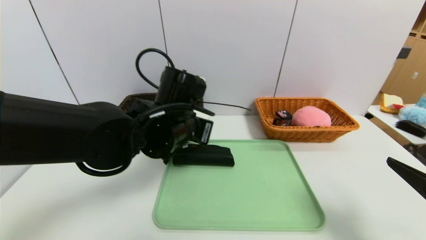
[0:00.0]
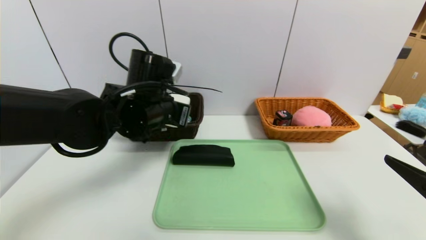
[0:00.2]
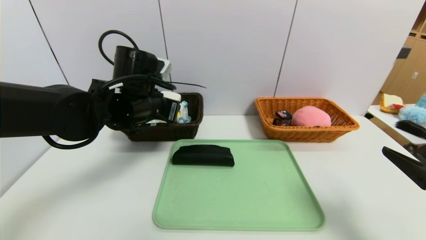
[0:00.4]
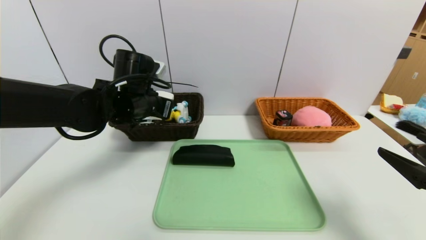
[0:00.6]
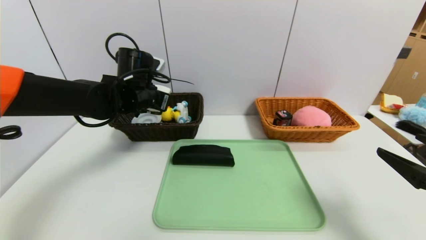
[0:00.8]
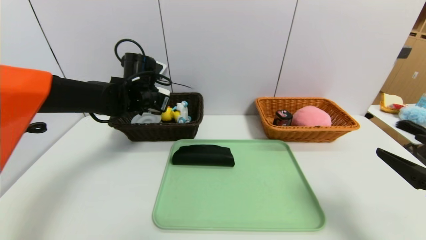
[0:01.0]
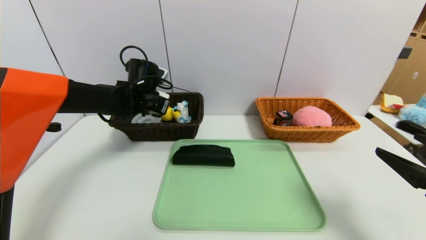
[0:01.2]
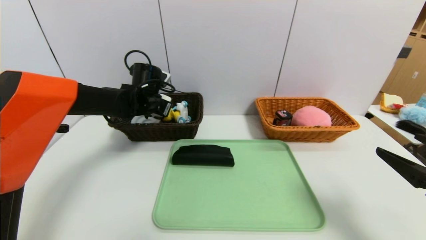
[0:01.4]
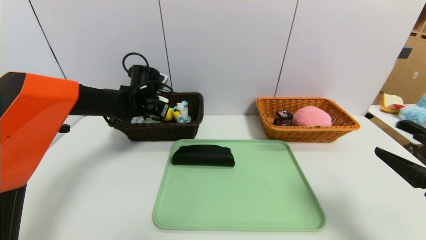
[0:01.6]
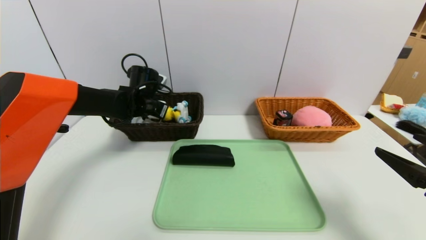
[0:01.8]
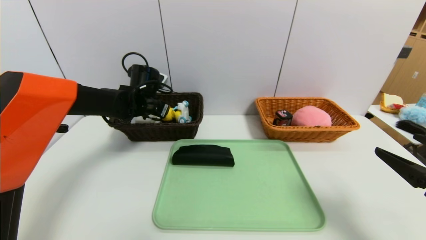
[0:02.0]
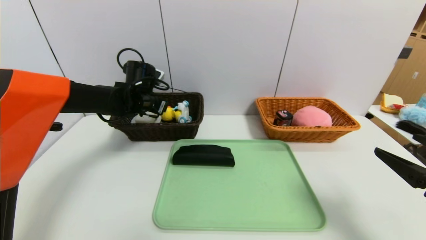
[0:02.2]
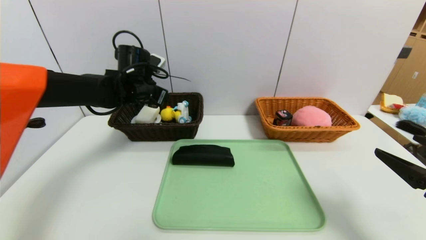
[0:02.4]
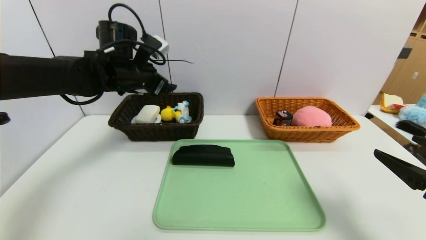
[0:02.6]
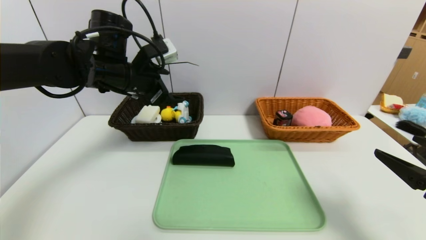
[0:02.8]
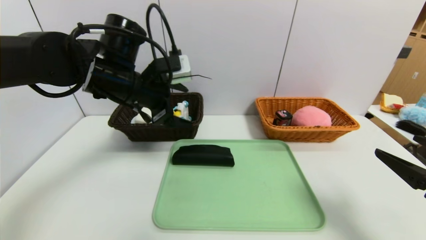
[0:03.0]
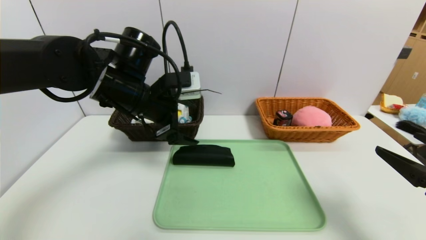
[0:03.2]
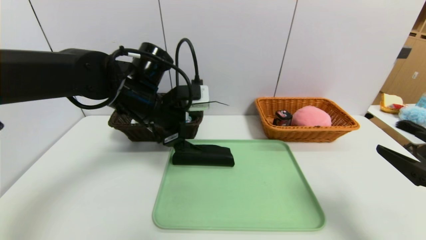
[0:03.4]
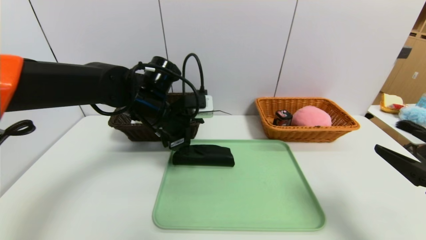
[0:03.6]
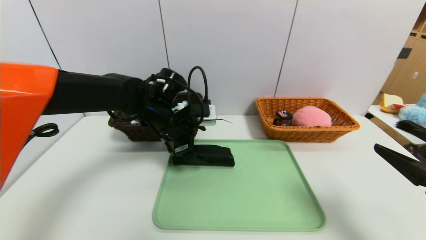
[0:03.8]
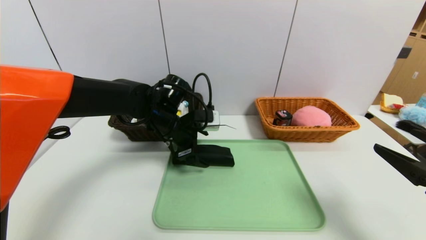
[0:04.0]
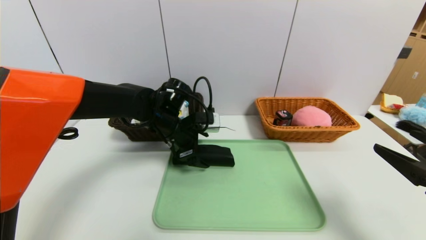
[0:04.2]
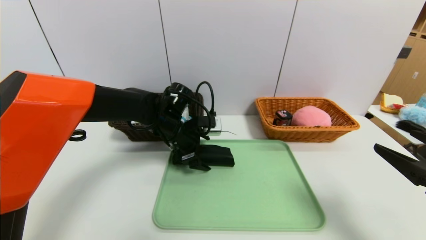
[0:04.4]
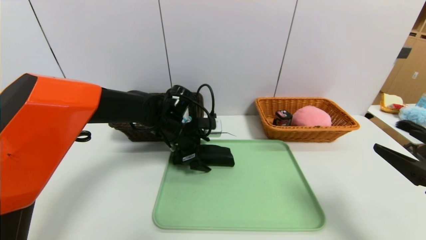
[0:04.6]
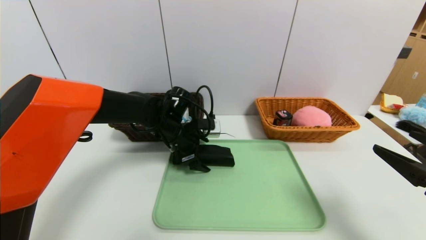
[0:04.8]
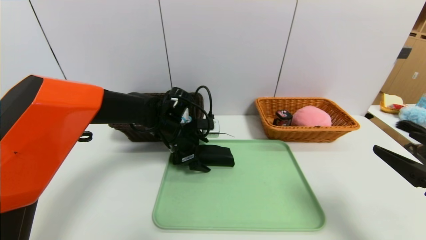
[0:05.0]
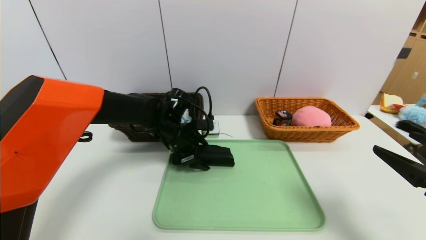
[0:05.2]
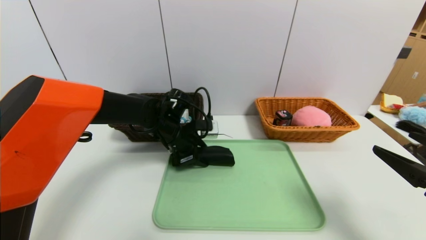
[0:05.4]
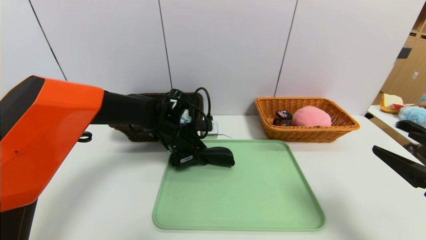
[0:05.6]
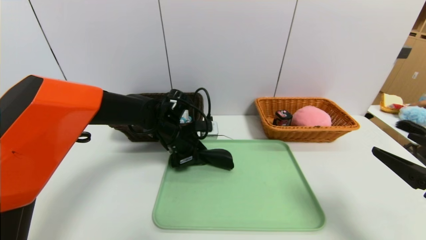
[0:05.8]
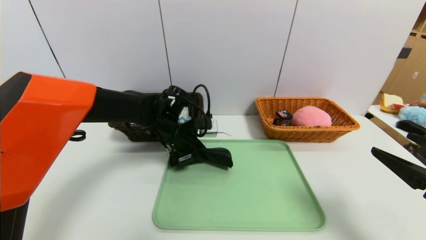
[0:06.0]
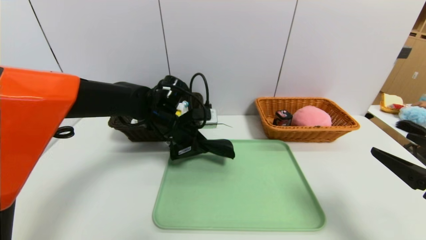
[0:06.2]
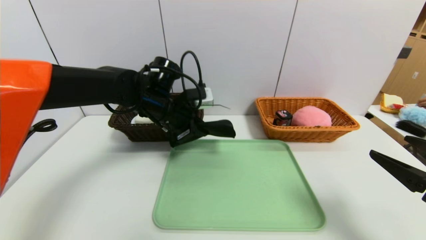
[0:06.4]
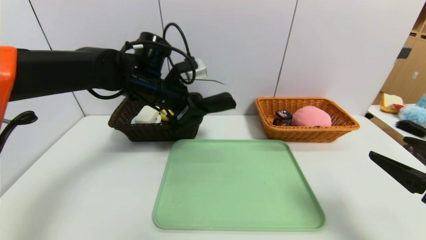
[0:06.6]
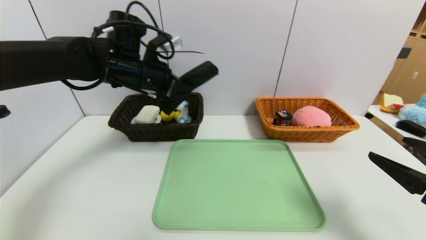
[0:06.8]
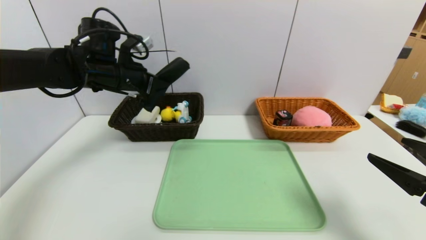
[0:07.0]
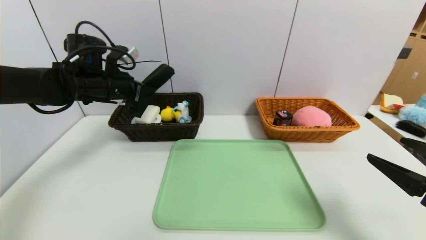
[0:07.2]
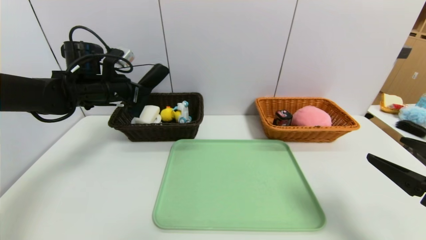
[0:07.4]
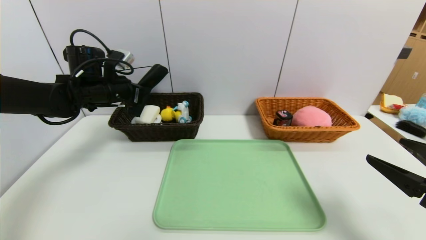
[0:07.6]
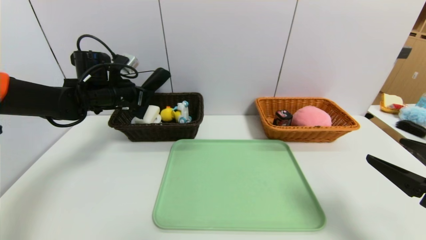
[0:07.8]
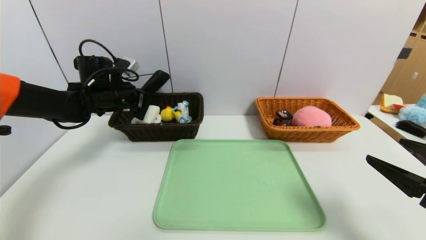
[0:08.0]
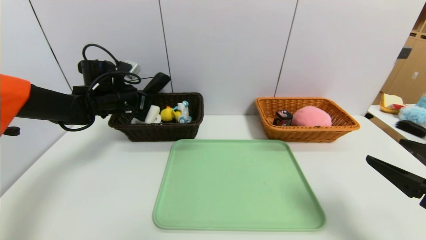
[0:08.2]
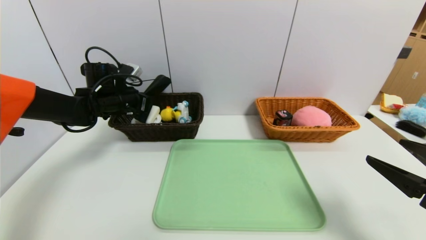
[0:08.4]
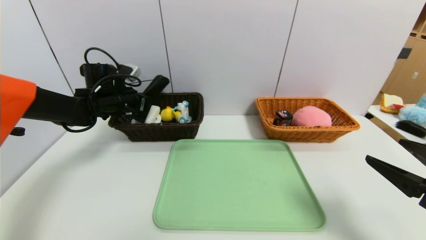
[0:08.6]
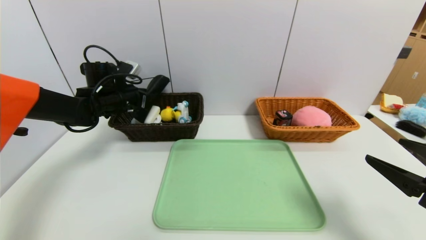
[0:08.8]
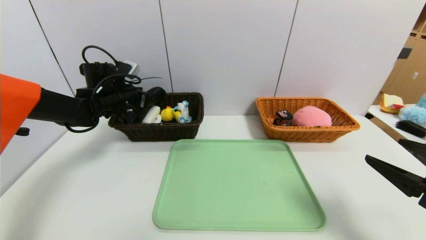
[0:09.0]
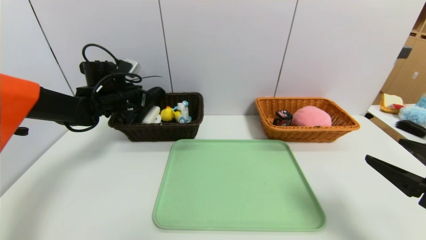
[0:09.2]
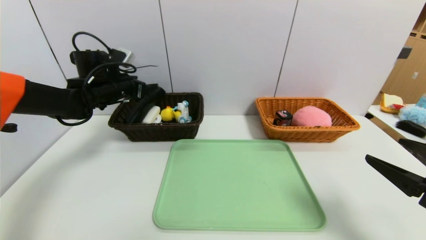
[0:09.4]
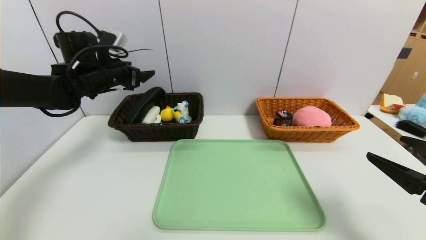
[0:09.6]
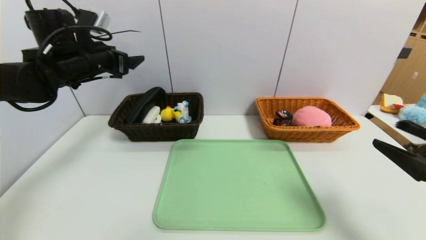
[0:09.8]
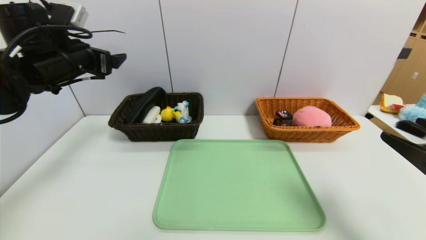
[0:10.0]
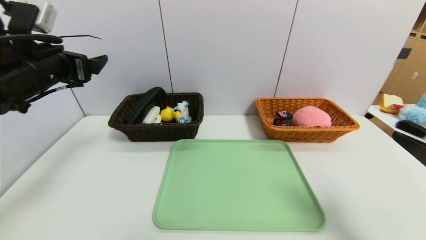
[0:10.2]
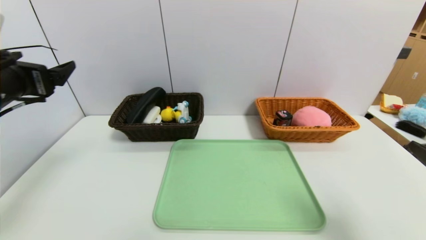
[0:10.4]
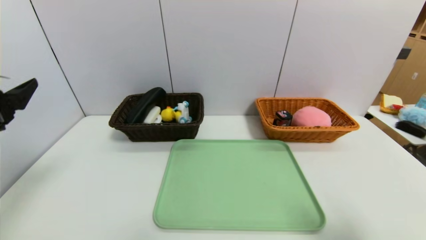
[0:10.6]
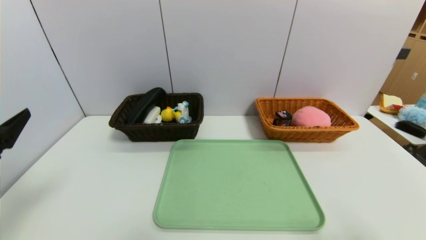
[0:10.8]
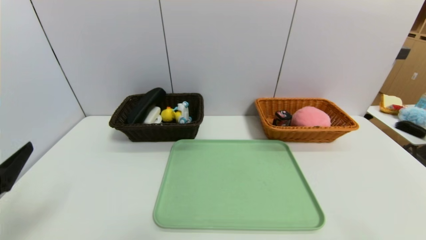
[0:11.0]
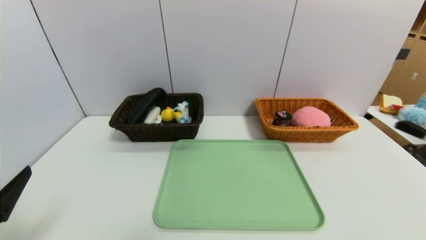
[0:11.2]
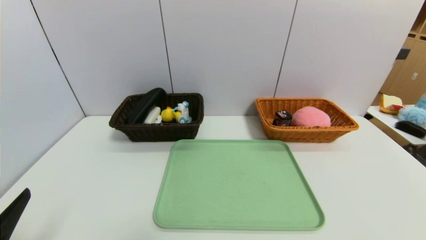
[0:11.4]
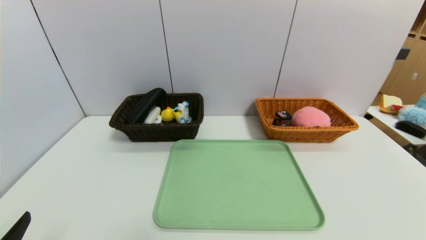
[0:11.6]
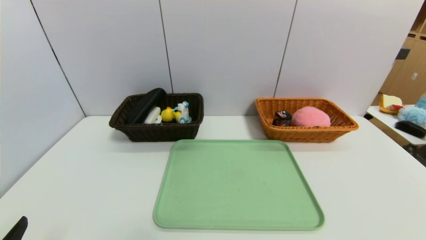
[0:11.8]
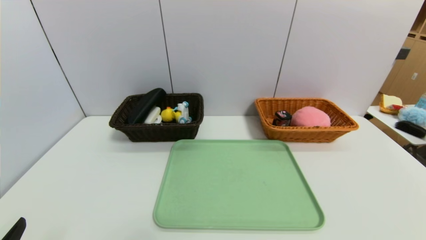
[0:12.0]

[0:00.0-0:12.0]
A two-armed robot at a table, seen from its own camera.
Task of the whole recording: place the food in the right basket with the right gripper, and place the non food items in the left basket with the left gripper.
Step, 0:00.0 to 0:02.4: Grasp the soap and put it in the left basket.
Step, 0:02.6 to 0:10.6: Grasp the glasses case and put it in the left basket.
0:00.0 to 0:01.6: The left gripper goes roughly 20 cm forward and to the left.
0:01.6 to 0:03.0: The left gripper is displaced backward and upward by about 15 cm, and opens its fingers.
0:03.0 to 0:04.4: The left gripper moves downward, forward and to the right, about 15 cm.
0:04.4 to 0:06.0: The left gripper closes up.
0:06.0 to 0:07.6: The left gripper moves to the left and upward, some 15 cm.
0:07.6 to 0:09.0: The left gripper moves some 5 cm, and opens.
0:09.0 to 0:10.4: The right gripper changes place by roughly 5 cm, while the left gripper heads backward and upward, covering about 25 cm, and opens its fingers.
0:10.4 to 0:12.0: The right gripper goes approximately 15 cm backward and downward. The left gripper is displaced backward and downward by roughly 25 cm.

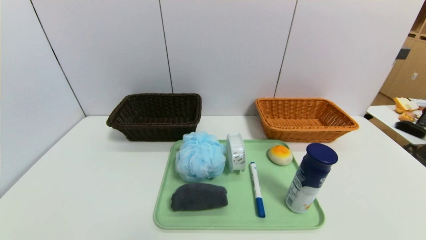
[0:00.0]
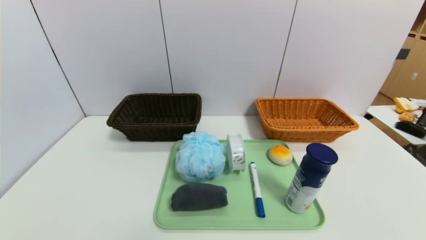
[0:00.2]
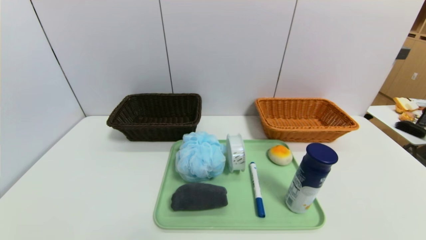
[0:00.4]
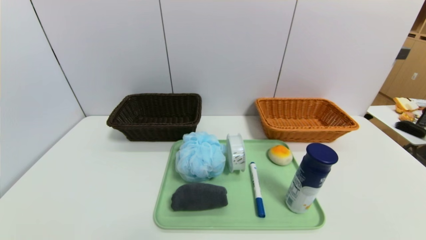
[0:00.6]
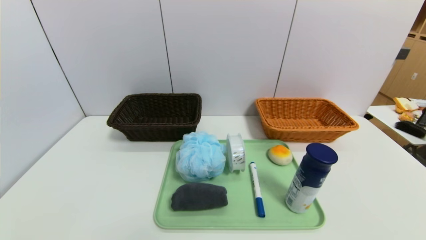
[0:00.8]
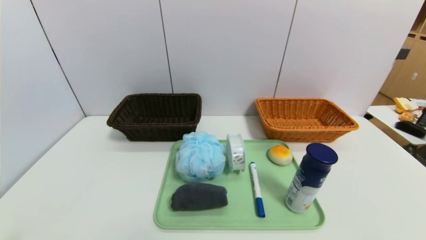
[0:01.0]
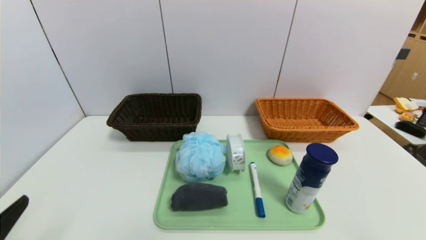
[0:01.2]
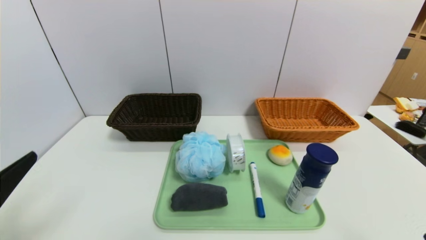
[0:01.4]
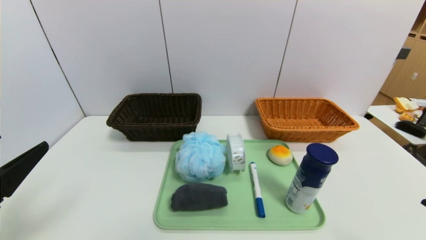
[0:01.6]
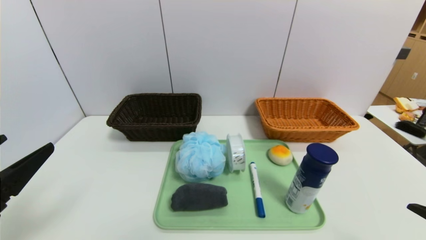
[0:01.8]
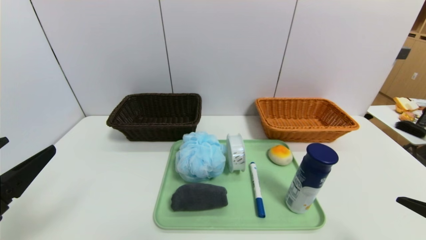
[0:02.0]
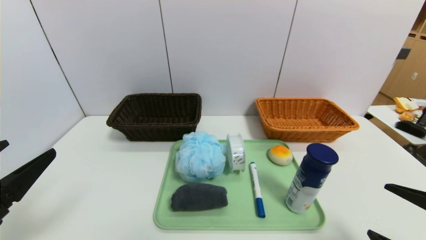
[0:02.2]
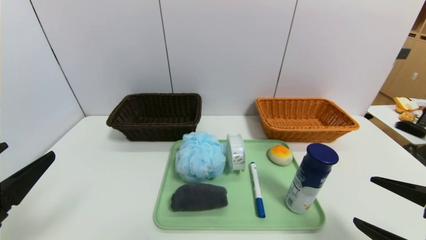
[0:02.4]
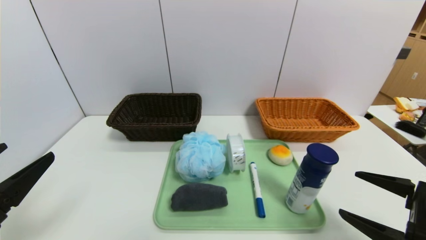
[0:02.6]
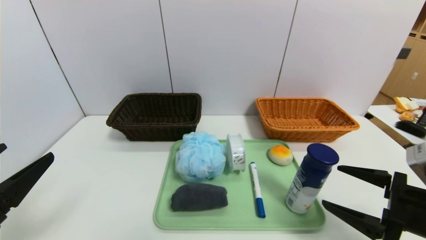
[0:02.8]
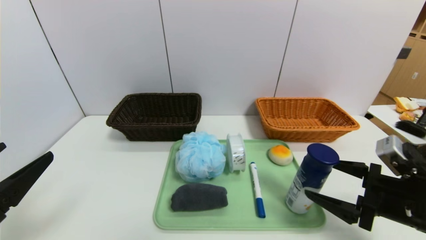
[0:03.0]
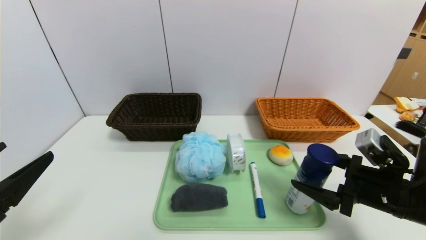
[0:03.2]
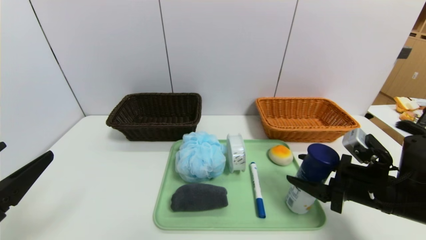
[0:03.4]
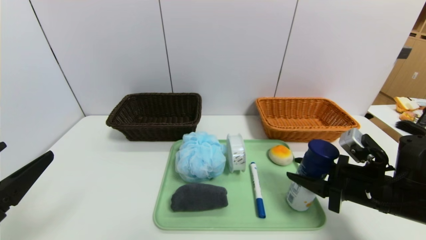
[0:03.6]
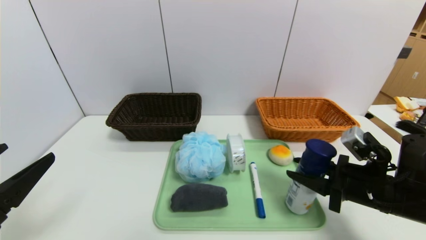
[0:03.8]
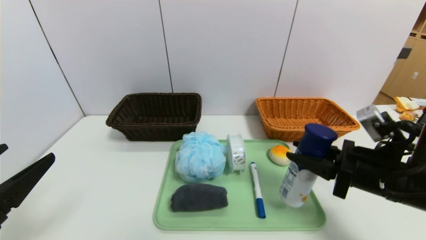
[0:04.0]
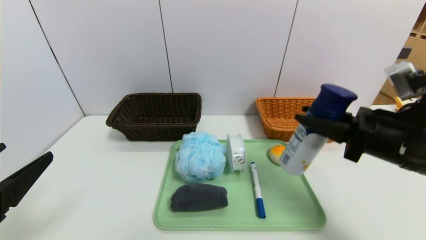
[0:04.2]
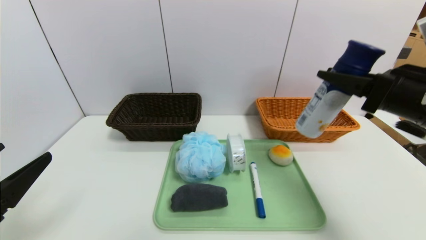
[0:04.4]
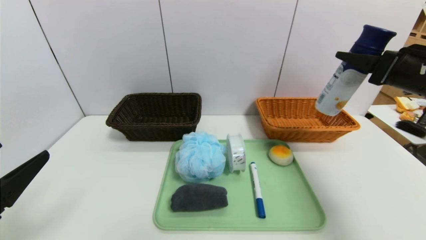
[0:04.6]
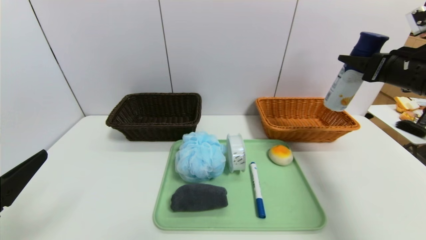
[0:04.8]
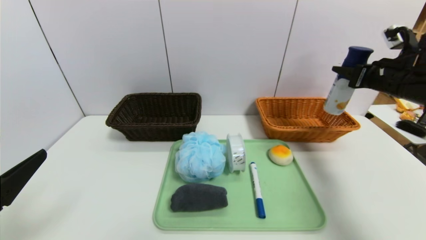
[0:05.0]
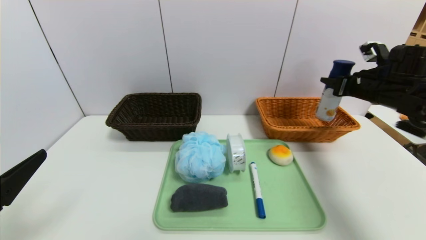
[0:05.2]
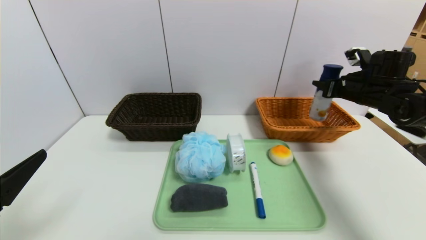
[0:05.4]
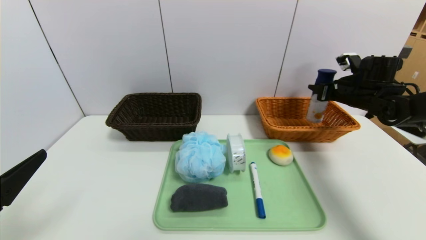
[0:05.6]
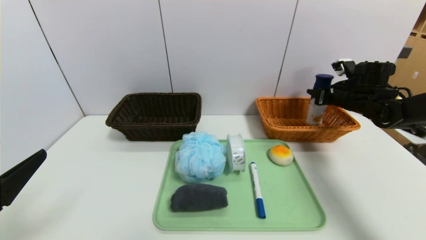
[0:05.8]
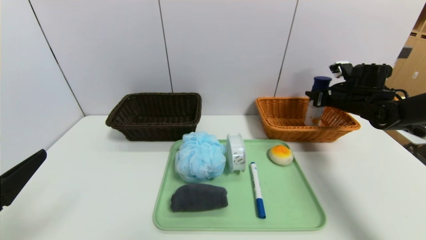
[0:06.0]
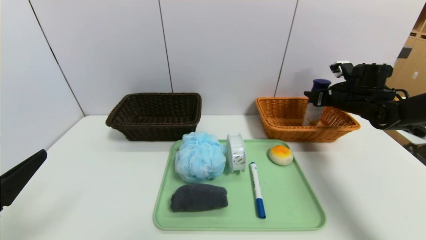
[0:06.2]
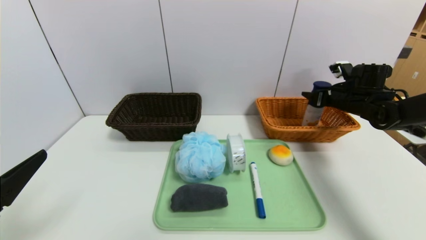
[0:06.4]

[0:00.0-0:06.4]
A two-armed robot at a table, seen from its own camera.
Task of the whole recording: place the food in the right basket with the right gripper, and place the non food items in the left basket with the left gripper.
0:00.0 to 0:01.6: The left gripper shifts approximately 15 cm upward and forward.
0:01.6 to 0:03.2: The right gripper goes approximately 15 cm forward.
0:03.2 to 0:04.8: The right gripper moves upward, forward and to the right, roughly 20 cm, and closes up.
0:04.8 to 0:06.4: The right gripper heads forward and downward, covering roughly 15 cm.
